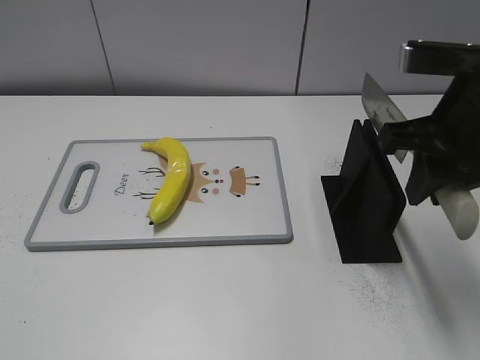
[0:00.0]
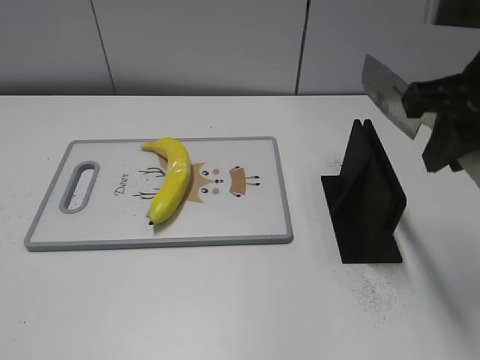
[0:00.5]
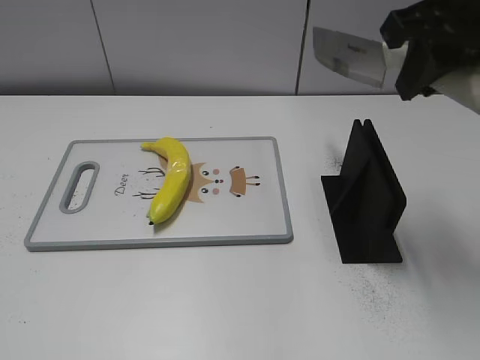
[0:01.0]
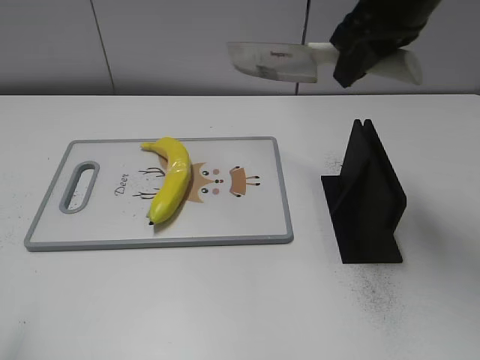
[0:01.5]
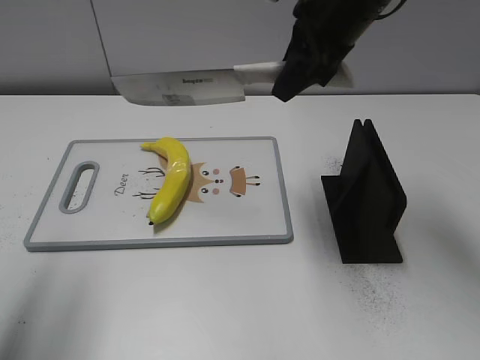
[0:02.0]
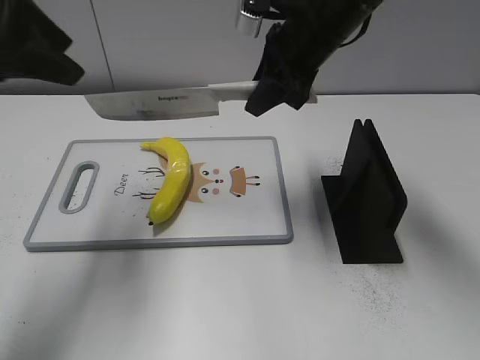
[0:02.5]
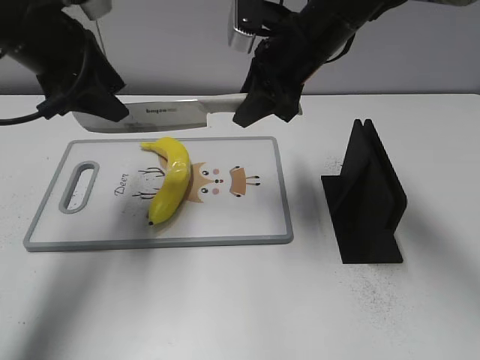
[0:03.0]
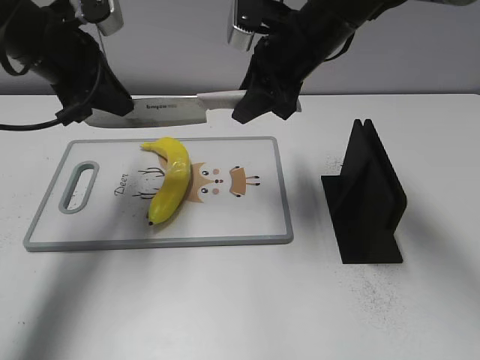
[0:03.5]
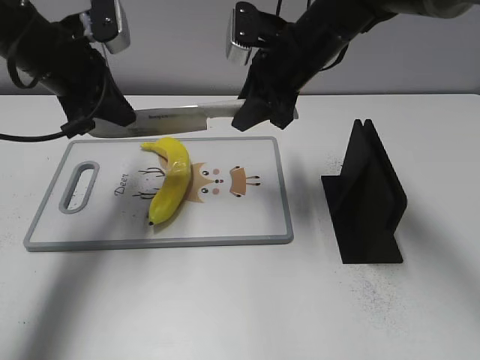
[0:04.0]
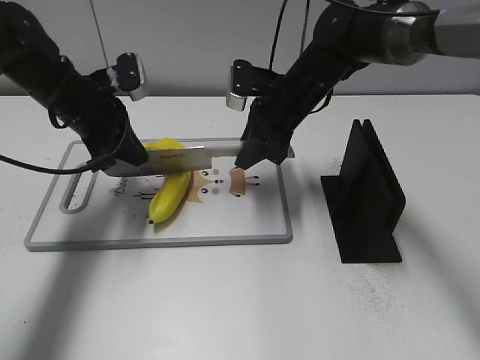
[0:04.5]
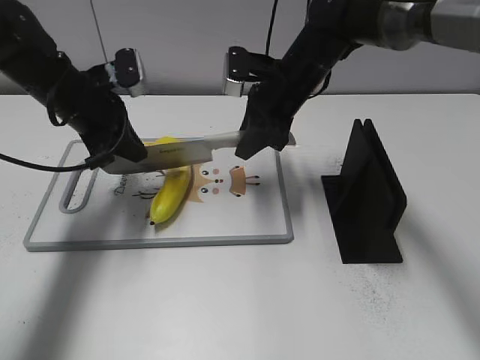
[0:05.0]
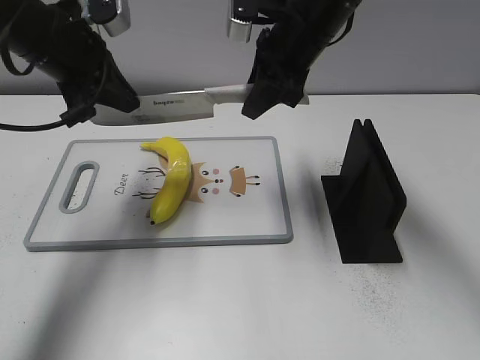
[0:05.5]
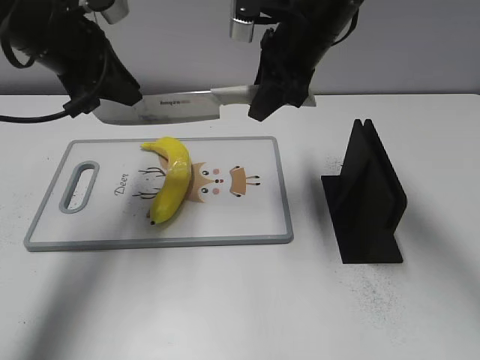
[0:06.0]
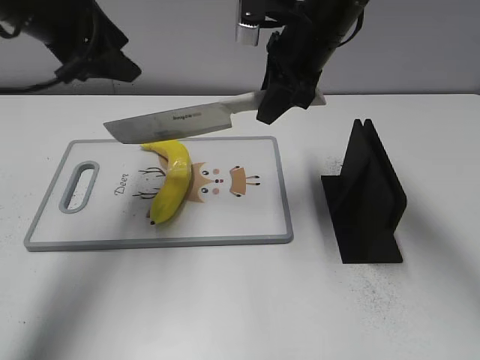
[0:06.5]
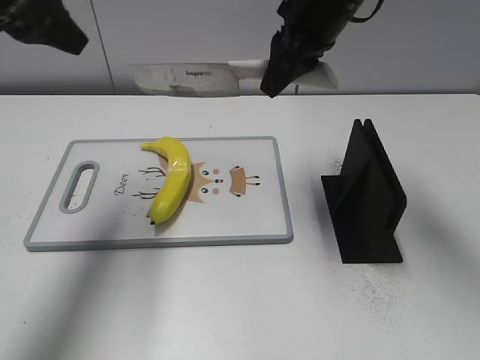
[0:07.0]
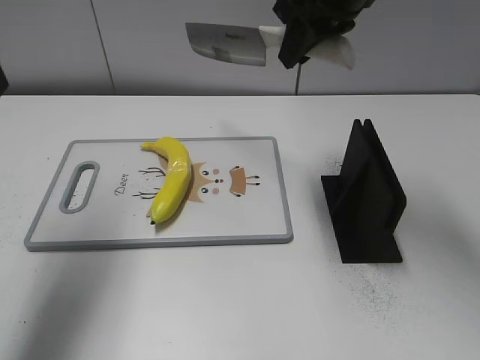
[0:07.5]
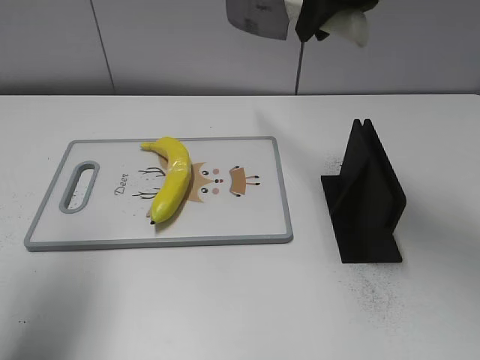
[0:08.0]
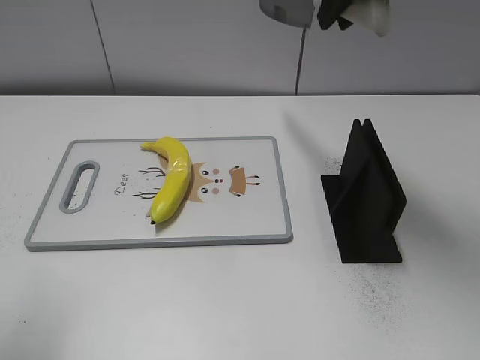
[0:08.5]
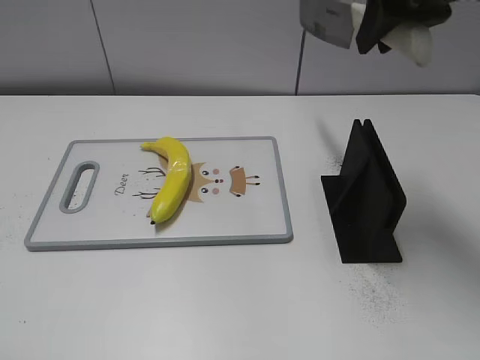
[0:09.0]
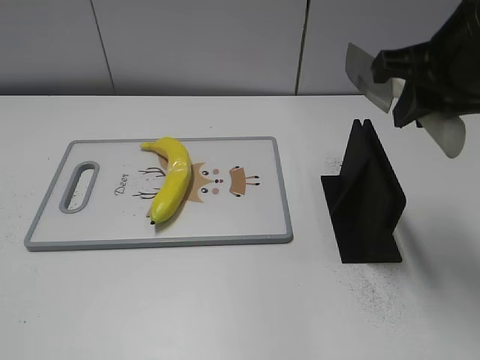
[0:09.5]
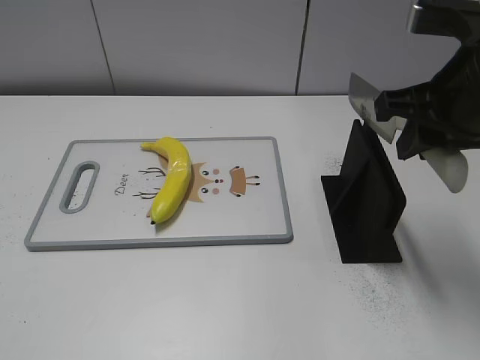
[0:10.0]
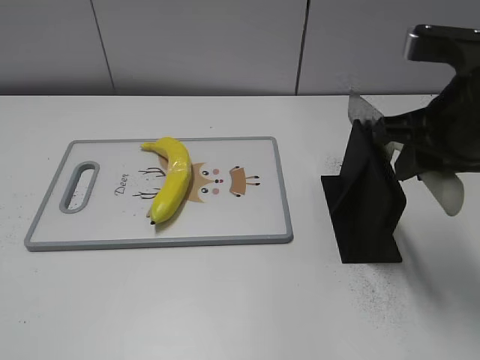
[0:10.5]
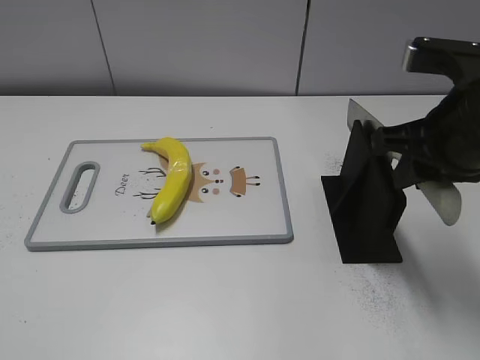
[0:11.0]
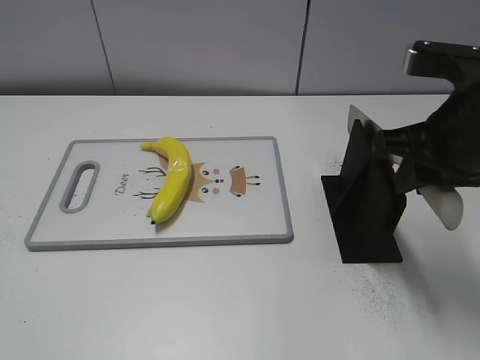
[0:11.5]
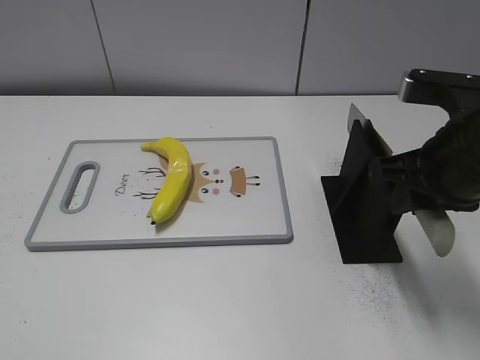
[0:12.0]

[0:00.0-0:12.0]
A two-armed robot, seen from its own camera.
Task of the whole recording: cut plastic banana.
Step, 0:01.5 to 0:06.5: Lift the knife with your right hand.
Step, 0:07.0 to 0:08.0: Cut the banana with your right hand.
Step, 0:08.5 to 0:09.0: Lift the knife with your right hand.
0:00.0 to 0:02.0: The left gripper goes about 20 cm forward and upward; the right gripper goes about 15 cm forward and to the left.
0:02.0 to 0:04.0: The left gripper shifts roughly 25 cm forward, downward and to the right, and closes its fingers. Meanwhile the right gripper is displaced downward by some 10 cm.
0:04.0 to 0:06.0: The left gripper reaches about 10 cm downward, then returns. The right gripper goes downward and returns, some 10 cm each way.
0:06.0 to 0:08.0: The left gripper is displaced backward, to the left and upward by approximately 15 cm, and opens up. The right gripper heads upward, covering approximately 10 cm.
0:08.0 to 0:10.0: The right gripper heads backward, to the right and downward, covering some 15 cm, while the left gripper travels backward by approximately 20 cm.
0:10.0 to 0:12.0: The right gripper goes approximately 5 cm downward.

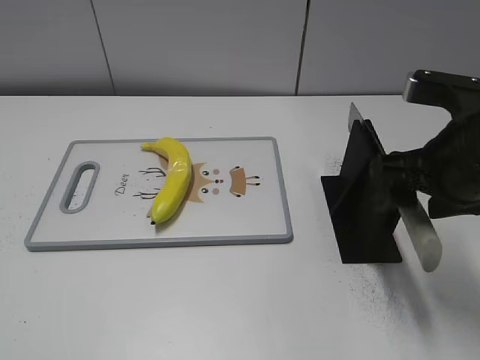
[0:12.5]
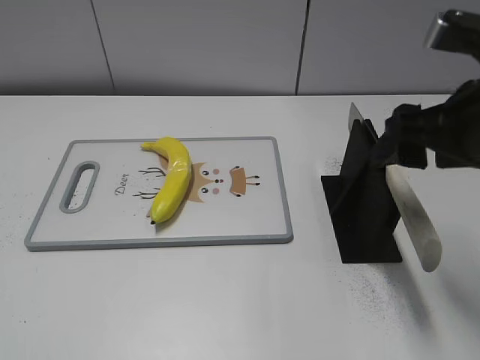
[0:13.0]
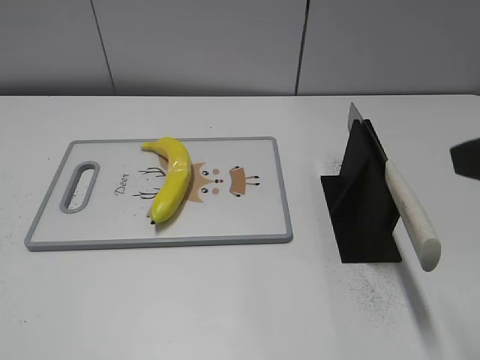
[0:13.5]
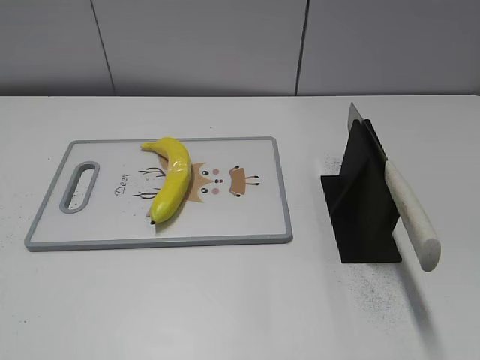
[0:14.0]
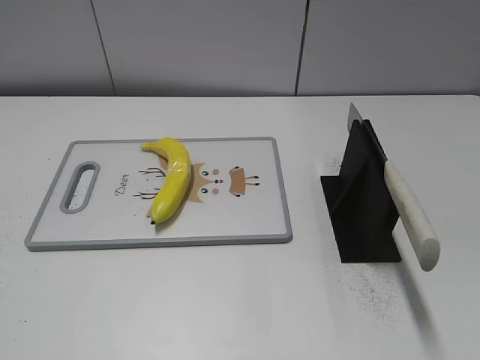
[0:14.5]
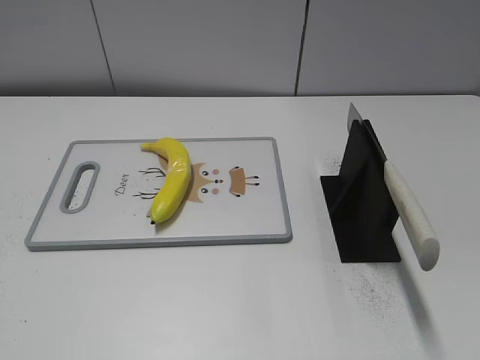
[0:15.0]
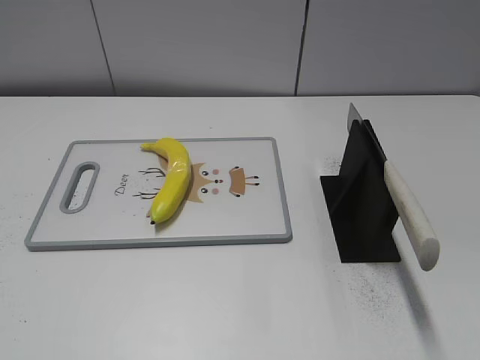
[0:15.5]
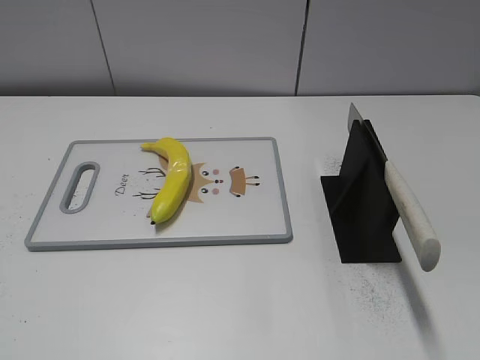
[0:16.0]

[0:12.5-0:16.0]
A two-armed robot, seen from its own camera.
Task of the whole recording: cut plastic banana.
Step, 0:12.5 to 0:16.0: Place the knife on the storage rack with your right hand.
0:12.5 to 0:14.5: The right gripper travels backward and to the right by some 25 cm.
